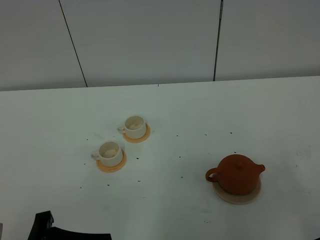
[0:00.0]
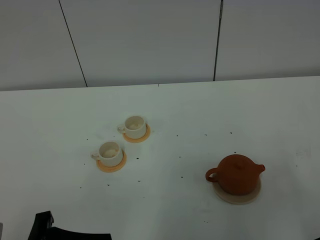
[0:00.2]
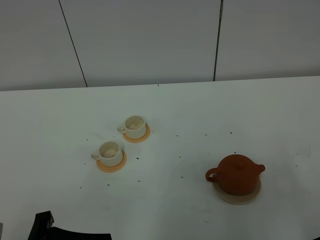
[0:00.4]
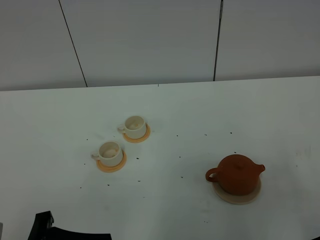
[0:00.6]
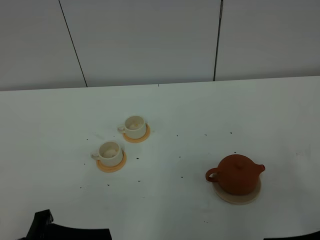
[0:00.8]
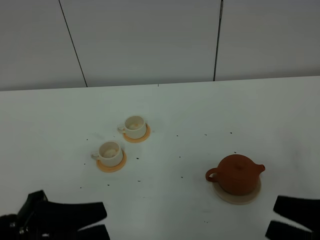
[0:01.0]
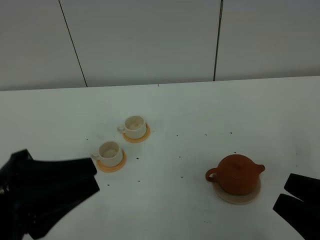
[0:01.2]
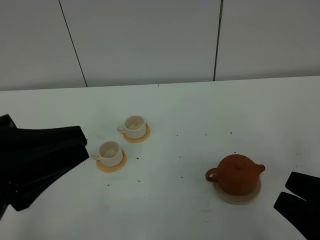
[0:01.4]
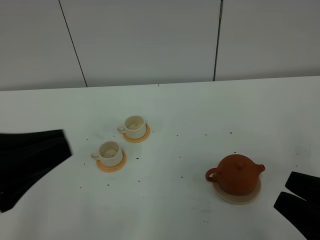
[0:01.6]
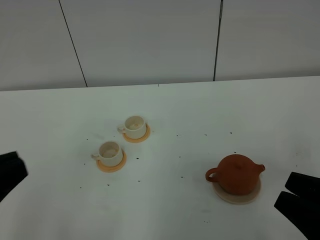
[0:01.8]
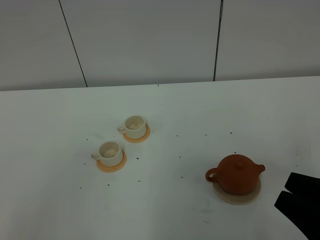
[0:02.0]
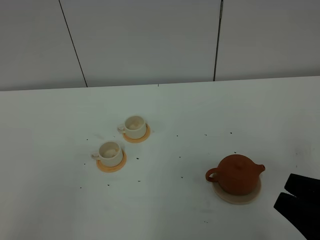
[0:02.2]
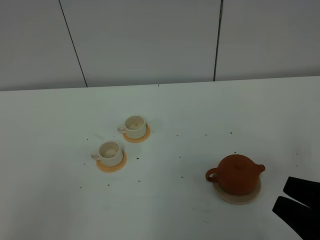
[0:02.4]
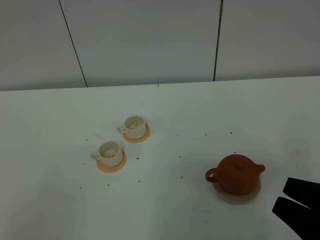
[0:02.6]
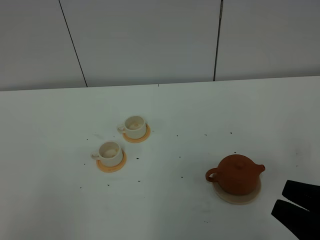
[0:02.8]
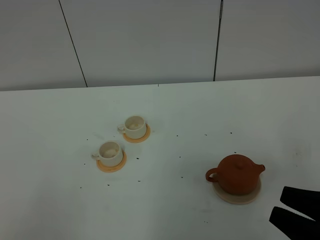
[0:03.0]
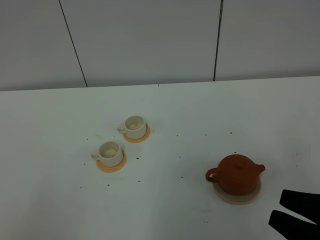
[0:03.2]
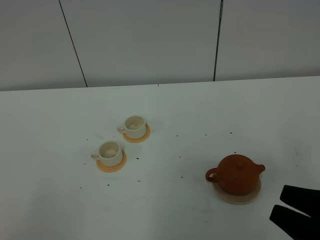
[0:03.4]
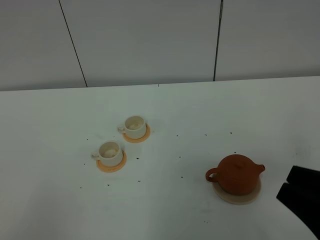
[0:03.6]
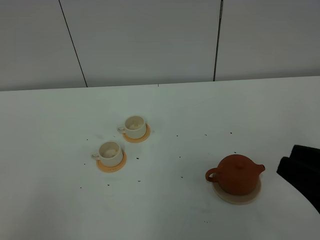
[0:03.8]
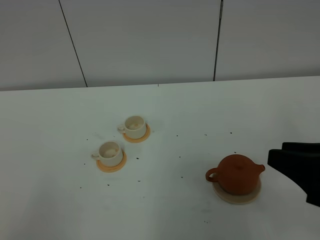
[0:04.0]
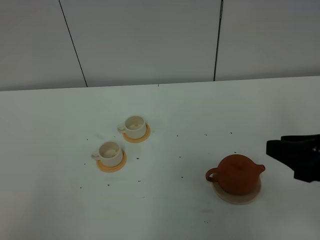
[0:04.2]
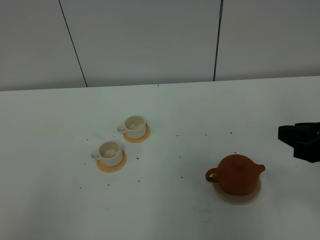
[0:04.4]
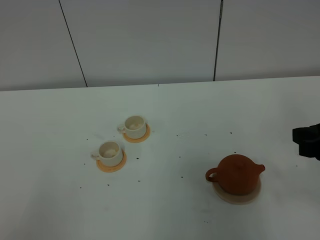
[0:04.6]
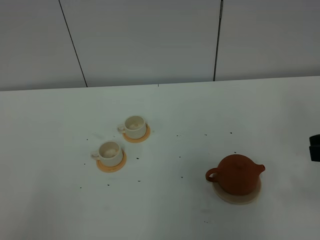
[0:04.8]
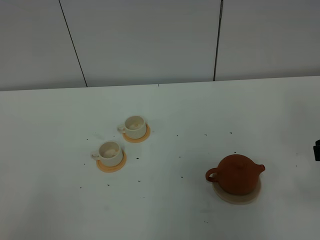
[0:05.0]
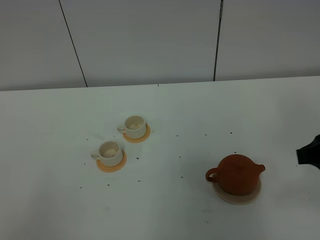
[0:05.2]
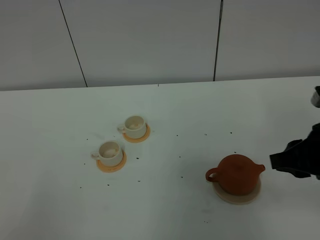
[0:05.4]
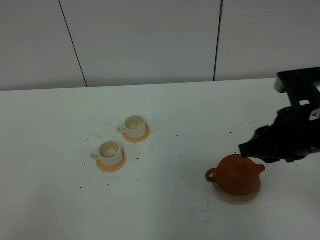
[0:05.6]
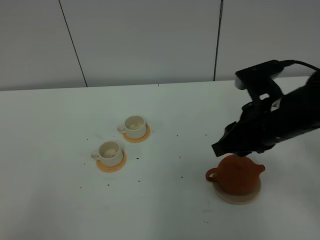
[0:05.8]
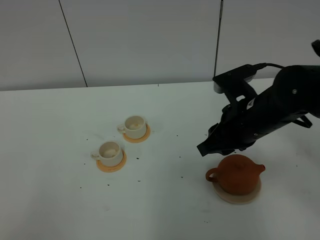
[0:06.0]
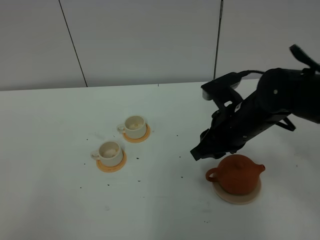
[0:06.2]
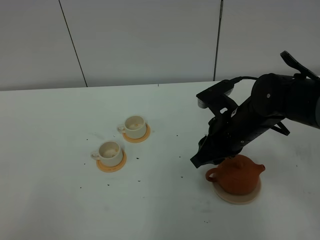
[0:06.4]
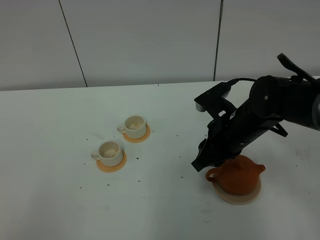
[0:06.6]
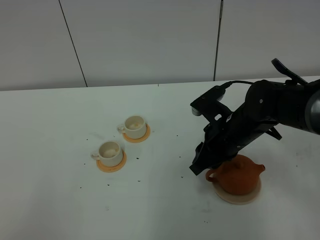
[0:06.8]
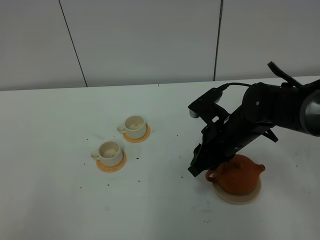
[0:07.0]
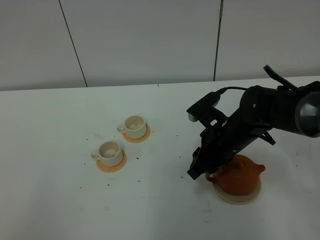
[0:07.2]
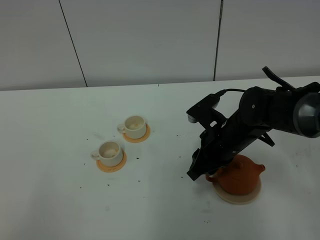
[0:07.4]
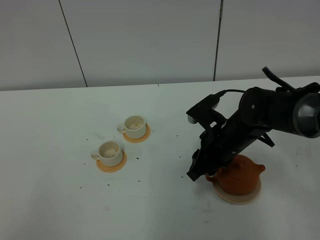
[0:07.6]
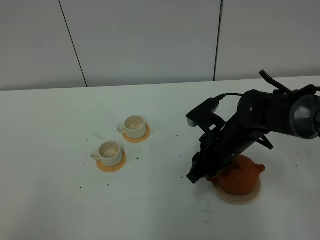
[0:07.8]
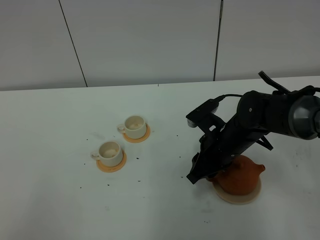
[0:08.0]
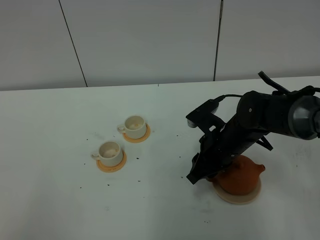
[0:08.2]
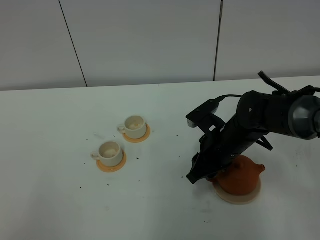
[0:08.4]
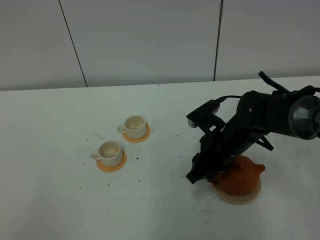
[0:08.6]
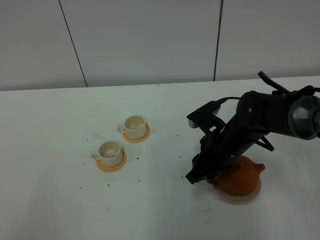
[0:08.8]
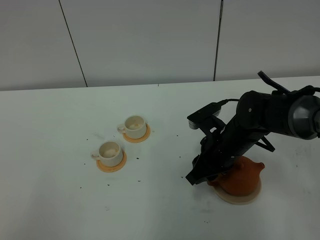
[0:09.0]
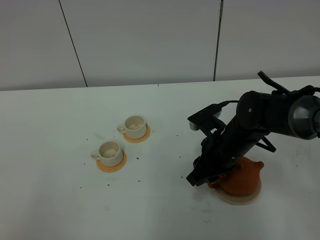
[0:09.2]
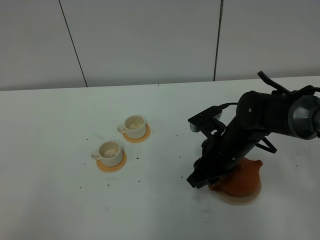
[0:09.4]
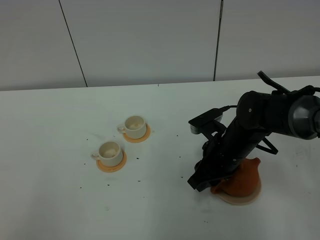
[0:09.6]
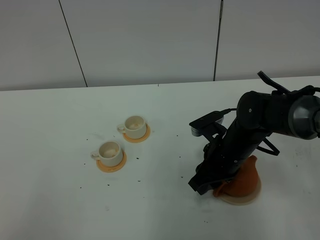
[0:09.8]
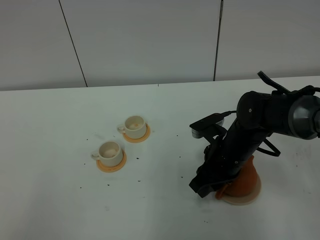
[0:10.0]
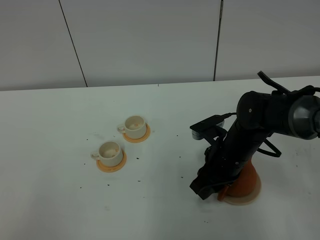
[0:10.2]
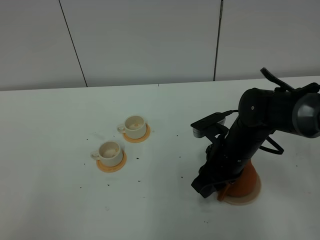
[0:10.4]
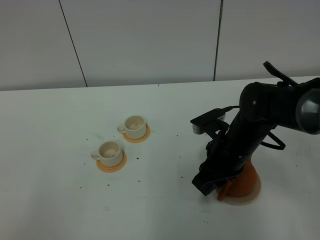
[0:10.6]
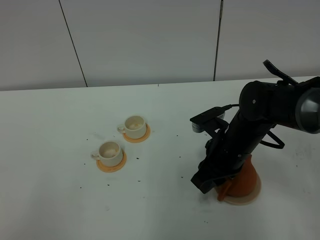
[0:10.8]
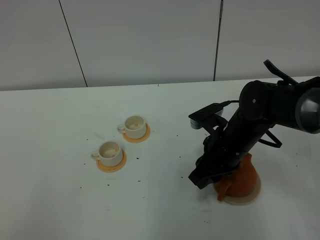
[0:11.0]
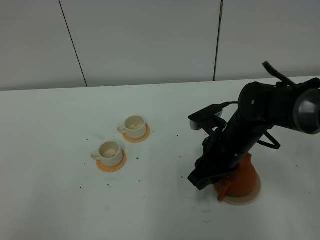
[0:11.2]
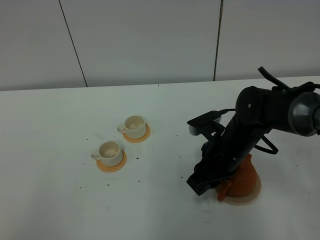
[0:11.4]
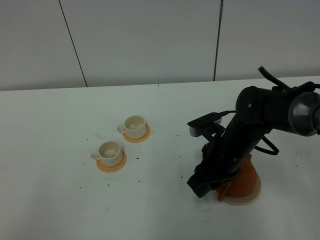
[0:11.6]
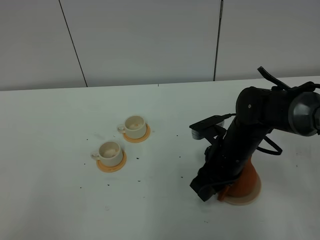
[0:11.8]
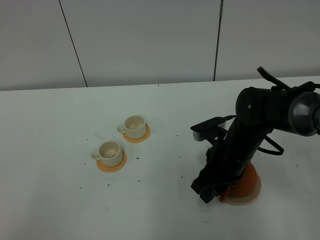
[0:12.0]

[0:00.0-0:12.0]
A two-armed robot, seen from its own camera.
Task of the whole recording: grasp the brown teapot and pour the tea into the two white teacups one by one, put the brown teapot back in its original place.
0:00.0 to 0:01.6: The left gripper is displaced upward by approximately 15 cm, and closes up.
0:01.6 to 0:03.0: The left gripper is displaced backward, downward and to the left by some 15 cm.
0:03.0 to 0:04.4: The right gripper travels forward by approximately 15 cm.
0:04.4 to 0:06.0: The right gripper heads to the left and forward, covering some 15 cm.
0:06.0 to 0:07.6: The right gripper goes roughly 10 cm downward.
0:07.6 to 0:10.4: There are only small adjustments of the grippers.
0:10.4 to 0:12.0: The grippers make only small movements.

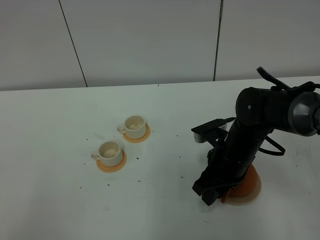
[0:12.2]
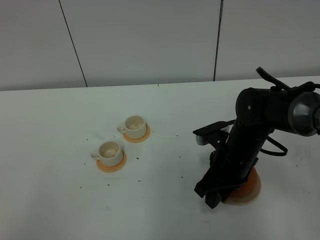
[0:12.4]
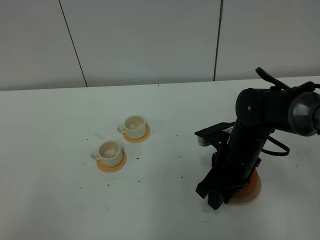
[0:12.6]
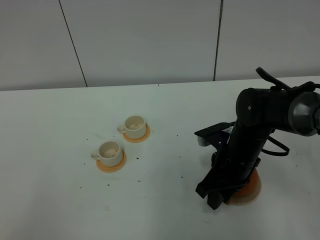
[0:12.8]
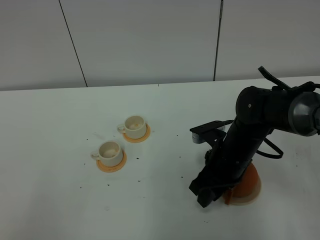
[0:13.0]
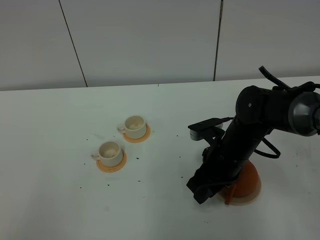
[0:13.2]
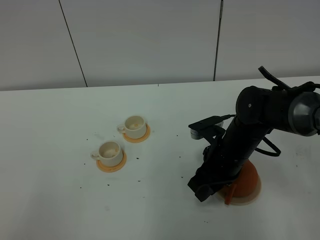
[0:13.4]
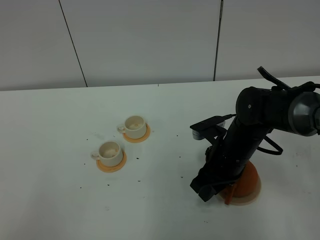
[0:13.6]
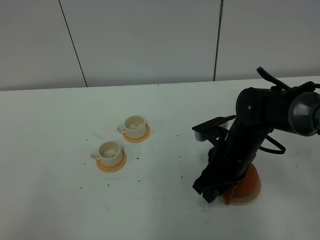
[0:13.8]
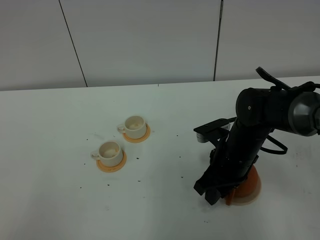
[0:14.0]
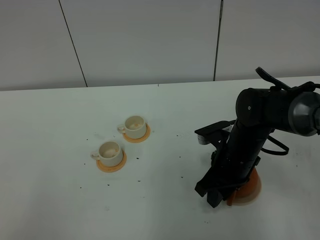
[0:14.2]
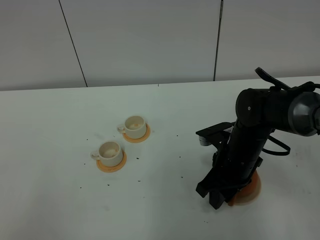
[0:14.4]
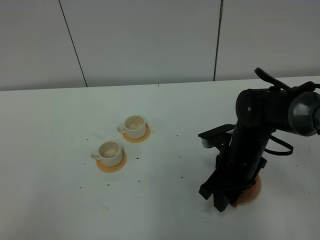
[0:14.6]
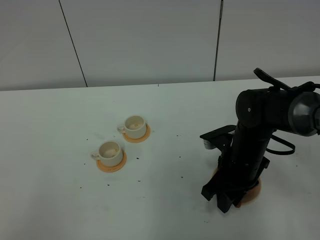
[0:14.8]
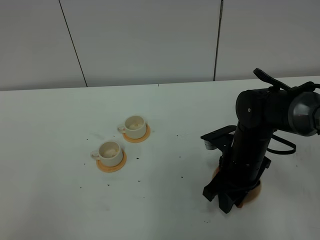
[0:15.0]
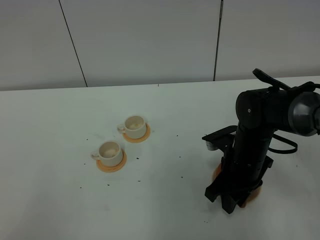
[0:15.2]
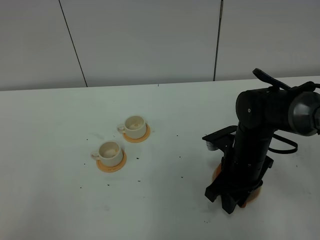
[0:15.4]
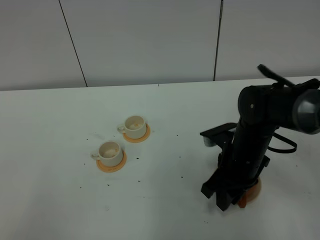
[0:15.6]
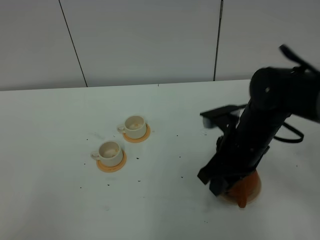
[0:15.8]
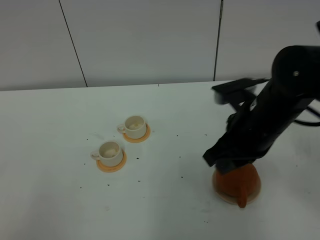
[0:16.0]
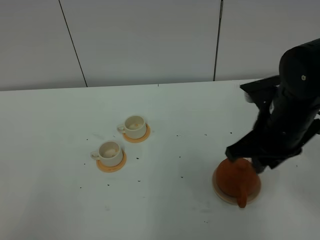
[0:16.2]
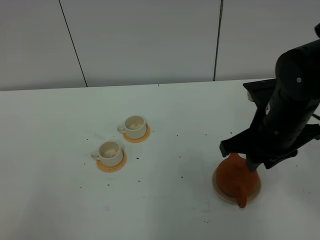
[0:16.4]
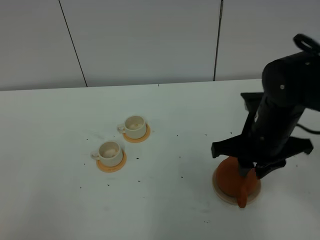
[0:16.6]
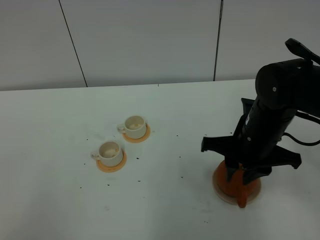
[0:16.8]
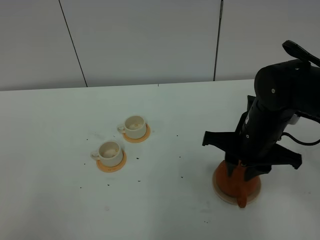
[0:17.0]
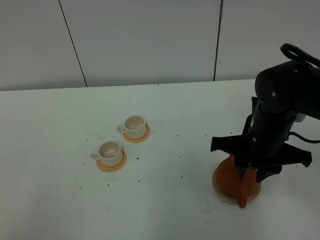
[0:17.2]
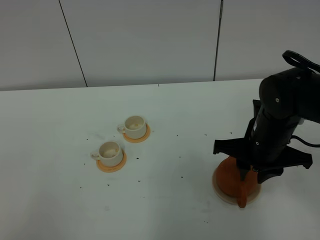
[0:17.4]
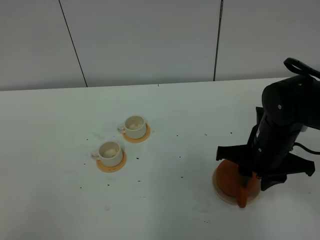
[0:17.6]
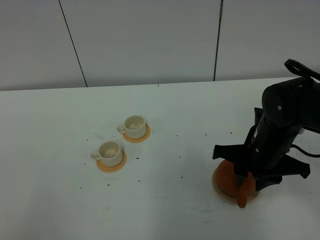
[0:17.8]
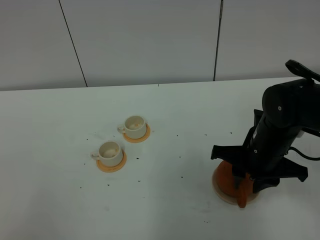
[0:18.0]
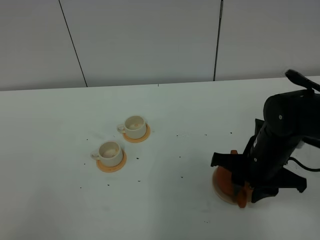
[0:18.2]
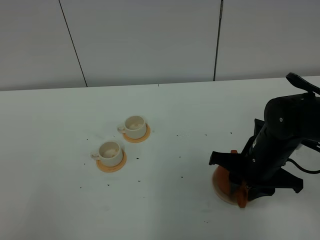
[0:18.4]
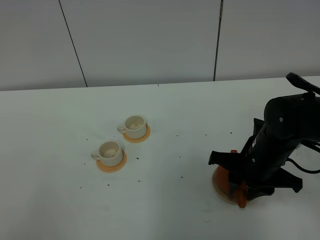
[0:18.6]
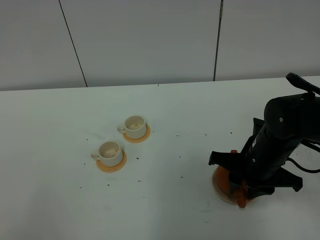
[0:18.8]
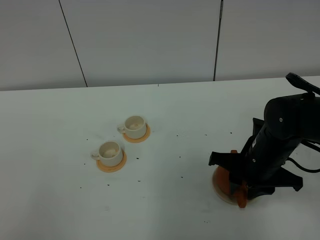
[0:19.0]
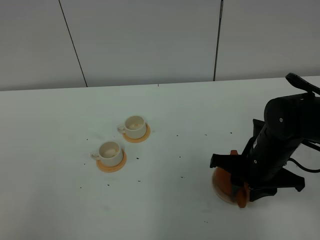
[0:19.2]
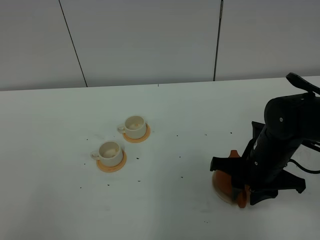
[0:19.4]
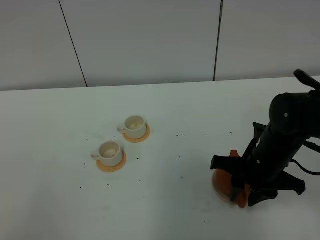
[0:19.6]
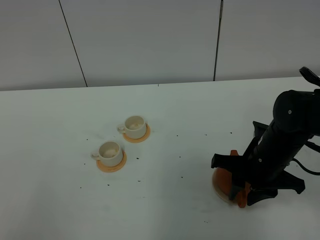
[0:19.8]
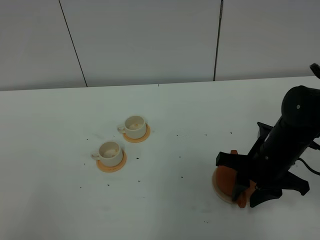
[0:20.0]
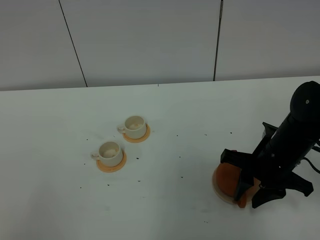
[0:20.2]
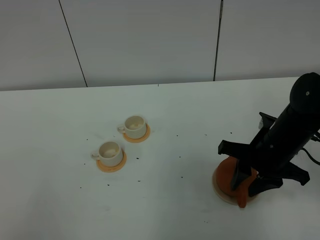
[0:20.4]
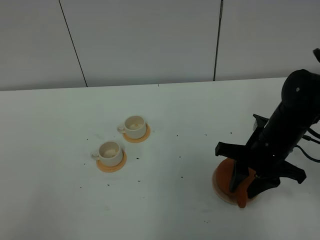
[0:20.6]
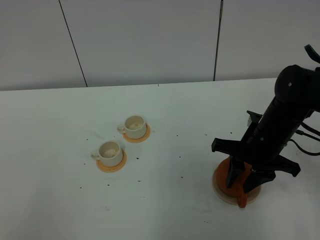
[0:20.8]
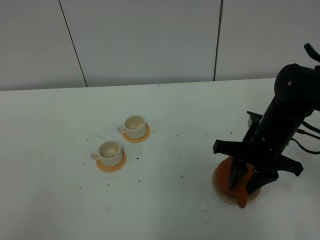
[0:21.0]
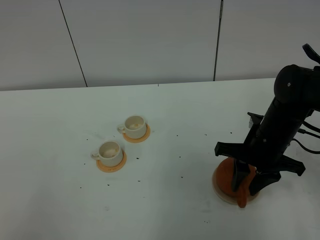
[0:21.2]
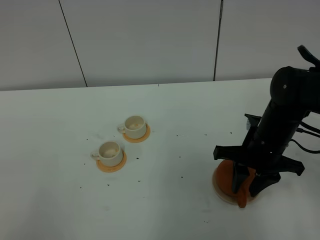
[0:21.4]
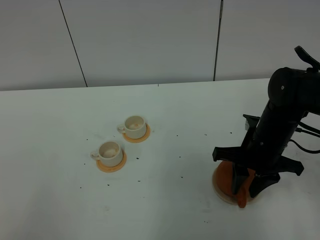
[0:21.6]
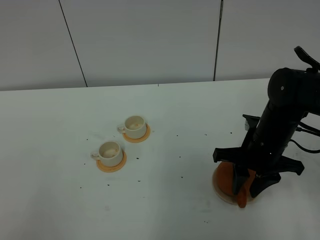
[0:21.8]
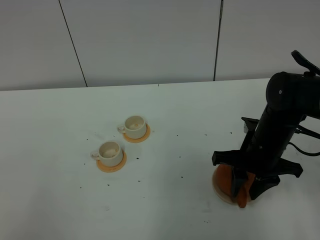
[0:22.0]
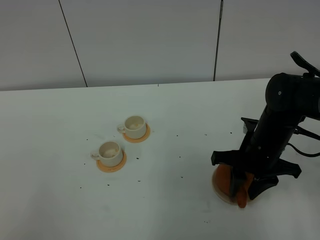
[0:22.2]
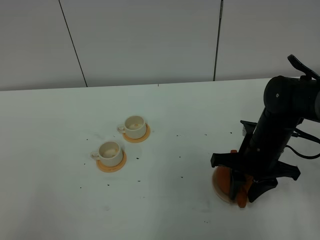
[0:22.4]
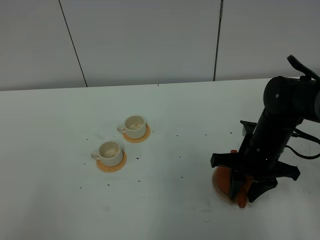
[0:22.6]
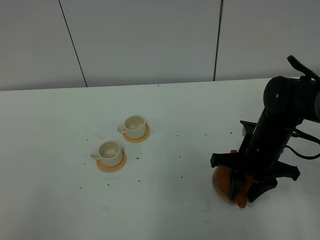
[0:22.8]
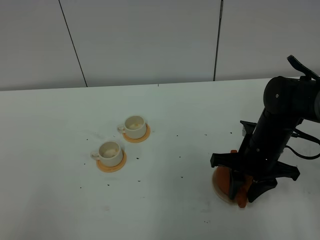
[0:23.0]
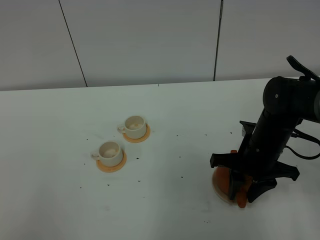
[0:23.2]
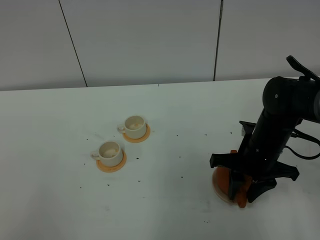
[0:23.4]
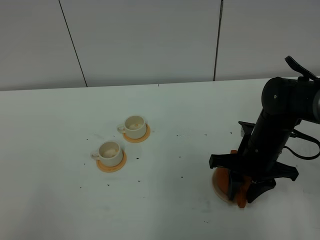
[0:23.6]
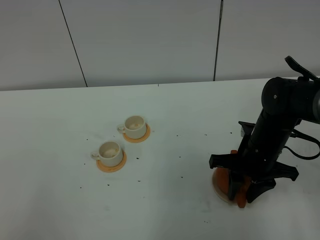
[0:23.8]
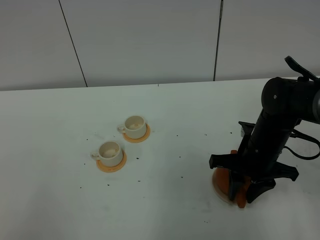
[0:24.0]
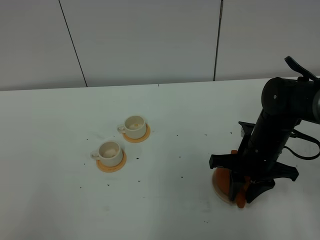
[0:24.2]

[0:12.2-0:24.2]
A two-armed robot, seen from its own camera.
Task of the whole recording: grasp the brown teapot and pour the tea into the two white teacups one by one, put the brown teapot back in its original place.
0:12.2 to 0:13.8: Neither gripper changes place.
0:13.8 to 0:15.2: The grippers stay close to where they were, moving slightly.
0:15.2 to 0:16.6: The right gripper is displaced upward by approximately 10 cm.
0:16.6 to 0:18.2: The right gripper heads downward, covering roughly 5 cm.
0:18.2 to 0:22.6: The grippers stay close to where they were, moving slightly.
0:22.6 to 0:24.2: The two grippers keep their place.
